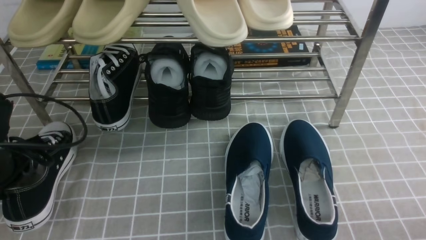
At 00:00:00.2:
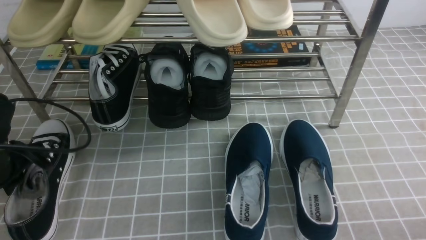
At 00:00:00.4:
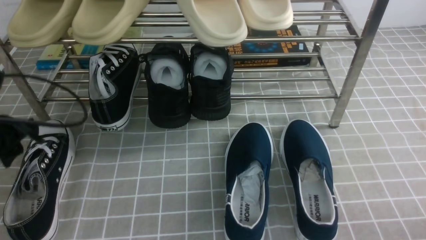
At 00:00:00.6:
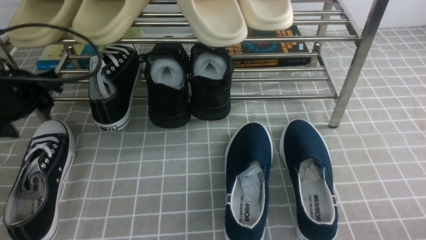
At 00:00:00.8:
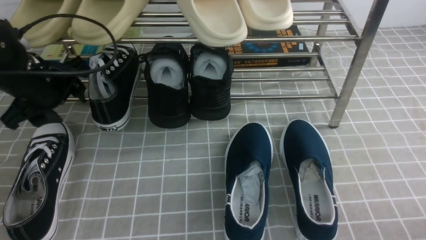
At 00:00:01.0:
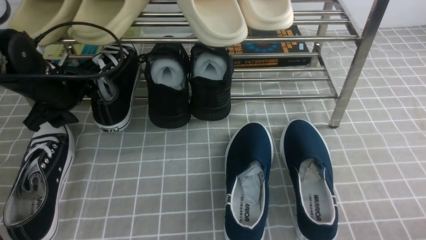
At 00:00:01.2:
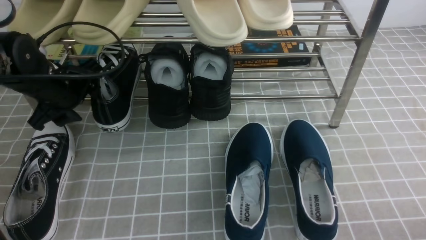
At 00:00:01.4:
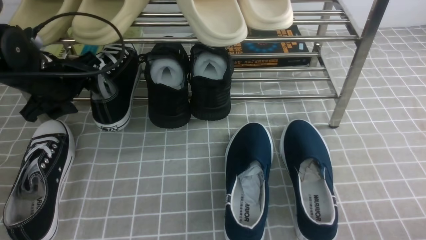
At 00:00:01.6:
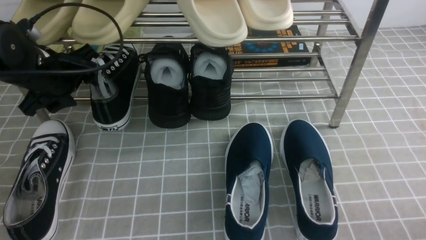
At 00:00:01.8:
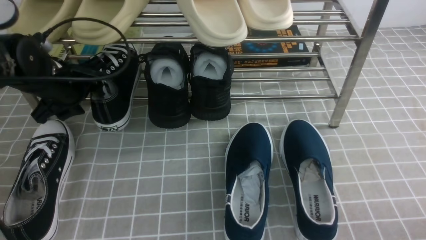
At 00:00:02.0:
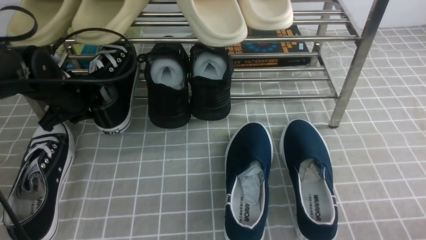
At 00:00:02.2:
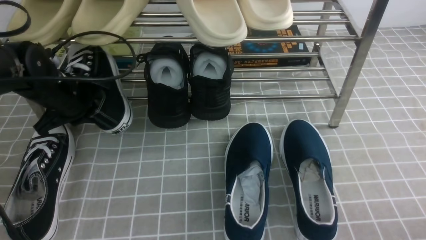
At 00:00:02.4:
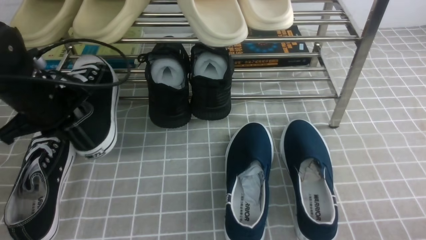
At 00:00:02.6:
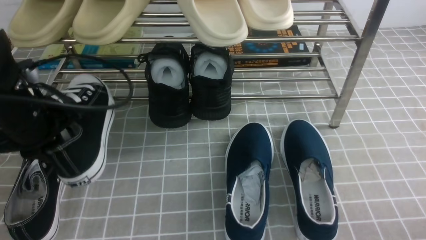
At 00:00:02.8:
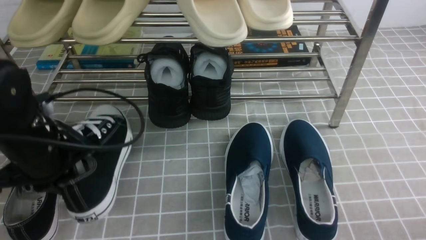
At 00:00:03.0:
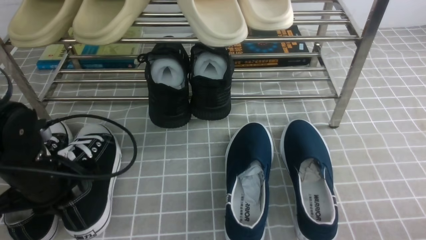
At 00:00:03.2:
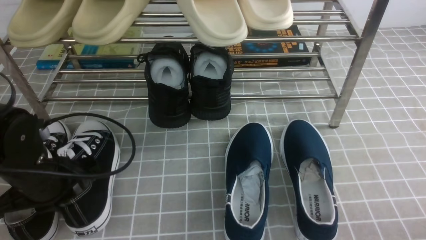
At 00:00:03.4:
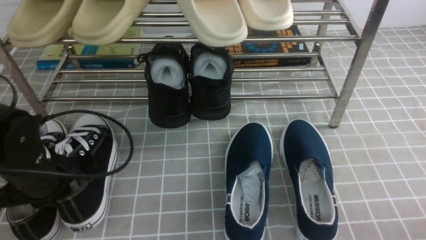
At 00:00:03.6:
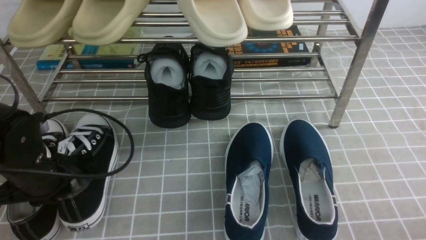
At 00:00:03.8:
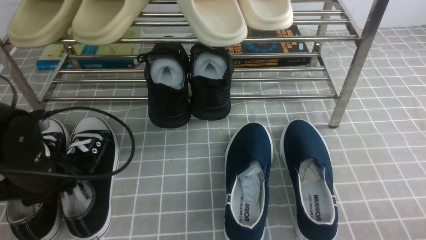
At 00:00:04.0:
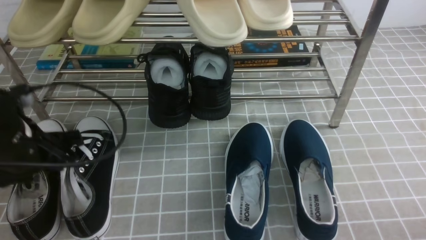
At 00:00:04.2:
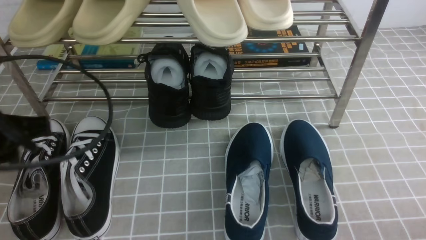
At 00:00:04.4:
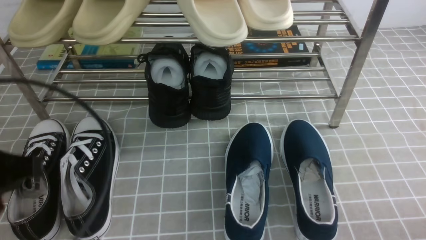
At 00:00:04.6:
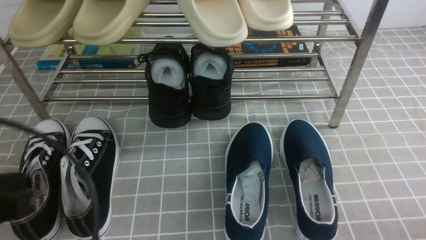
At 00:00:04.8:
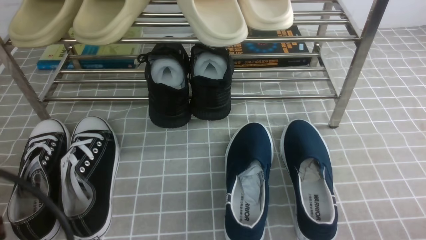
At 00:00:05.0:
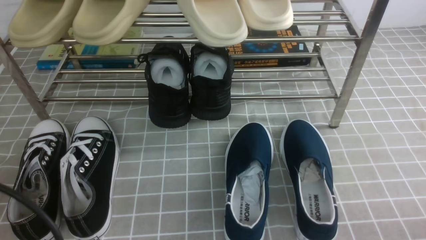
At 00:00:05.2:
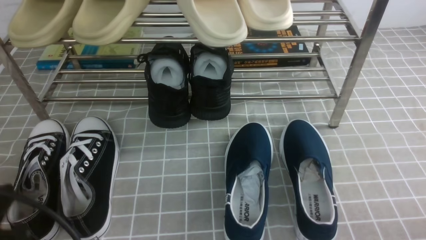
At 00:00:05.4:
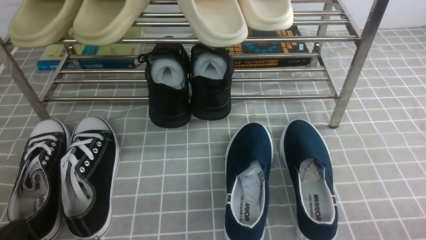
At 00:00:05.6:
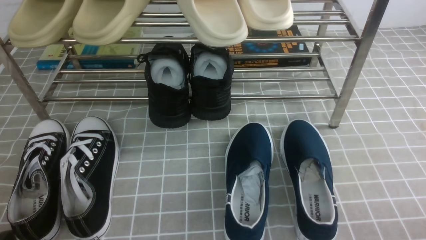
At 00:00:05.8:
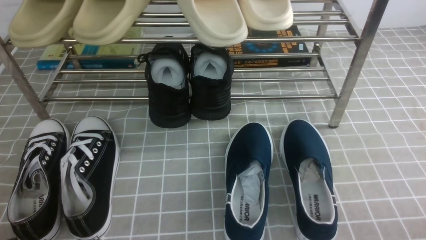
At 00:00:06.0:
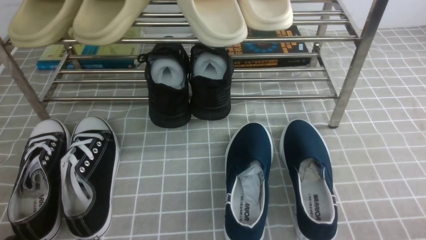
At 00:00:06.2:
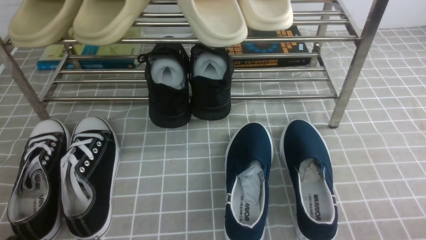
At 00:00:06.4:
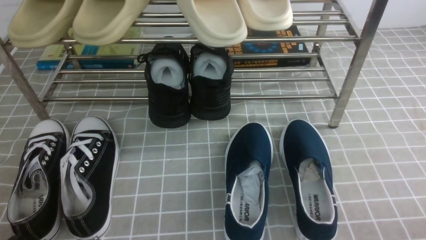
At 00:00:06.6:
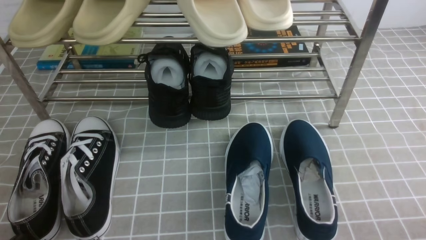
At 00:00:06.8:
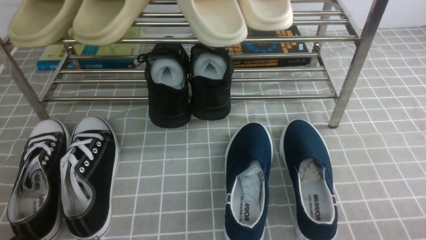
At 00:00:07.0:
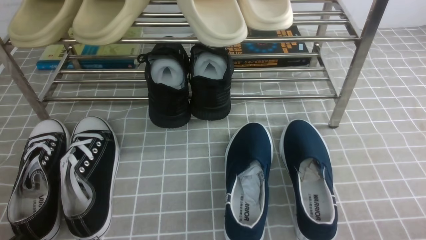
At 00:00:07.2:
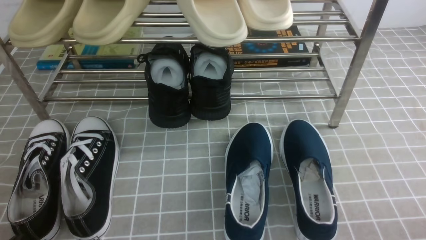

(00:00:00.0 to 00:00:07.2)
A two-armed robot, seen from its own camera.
Step, 00:00:00.6 - 00:00:02.2: use the left arm to clamp a shoe on the left side of the shoe rack.
Step, 00:00:02.4 - 00:00:03.8: Use your left arm to remove the clamped shoe from the shoe rack and put it down.
00:00:00.0 - 00:00:01.4: The left gripper travels forward by about 10 cm, and opens its fingers.
00:00:01.4 - 00:00:02.8: The left gripper shifts about 10 cm backward, and closes up.
00:00:02.8 - 00:00:04.4: The left gripper is displaced backward and upward by about 15 cm, and opens, then closes again.
00:00:04.4 - 00:00:05.8: The left gripper moves downward and backward, roughly 20 cm.
00:00:05.8 - 00:00:07.2: Both grippers stay put.
